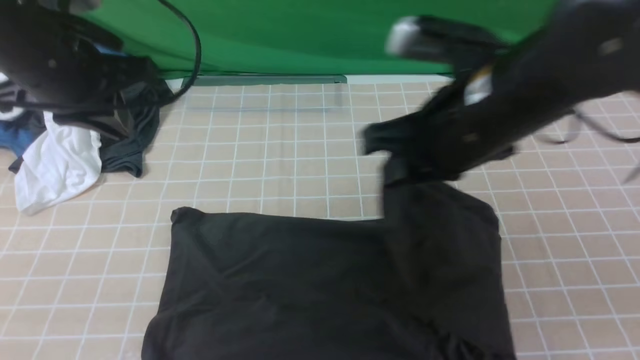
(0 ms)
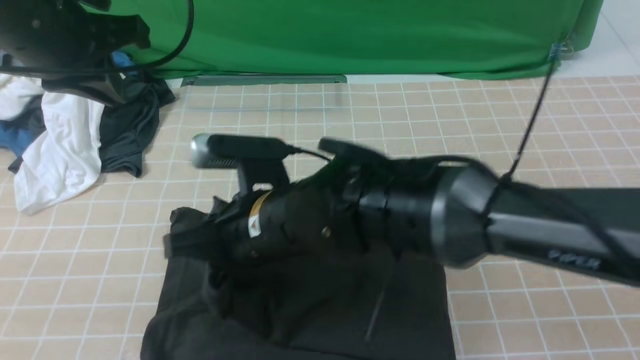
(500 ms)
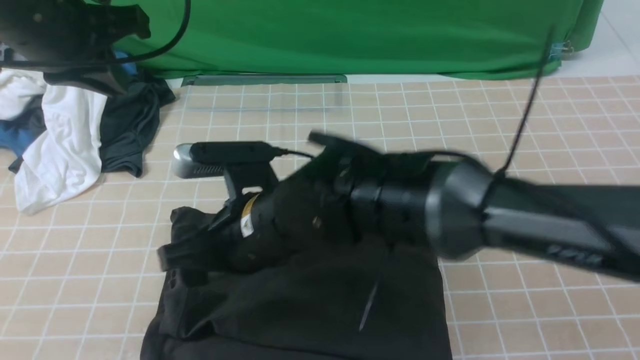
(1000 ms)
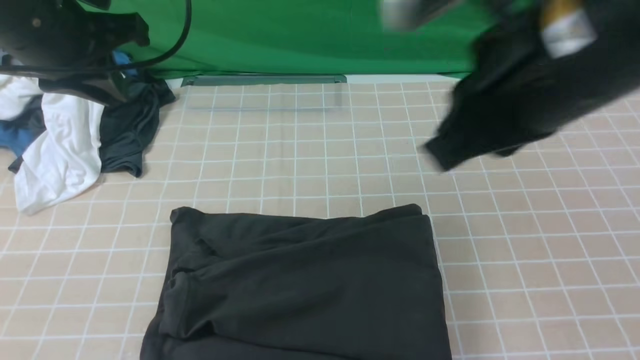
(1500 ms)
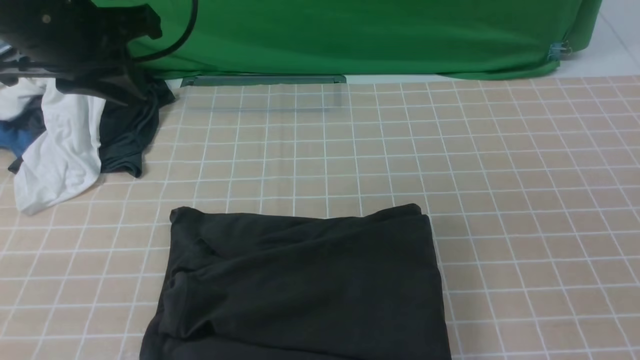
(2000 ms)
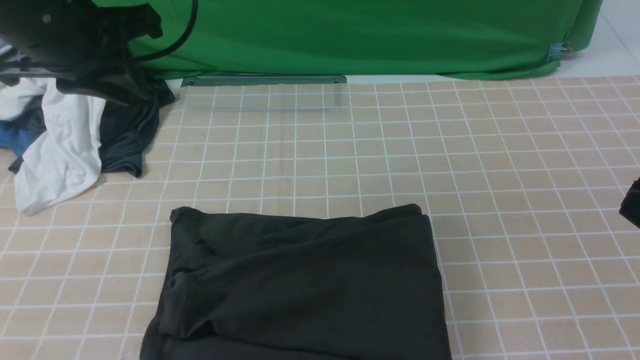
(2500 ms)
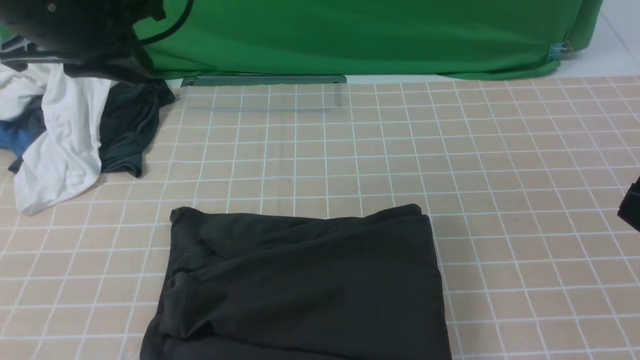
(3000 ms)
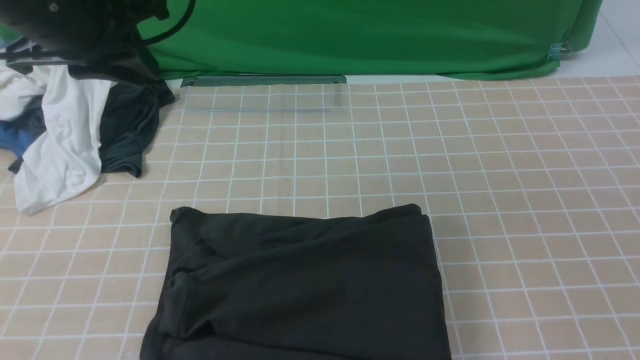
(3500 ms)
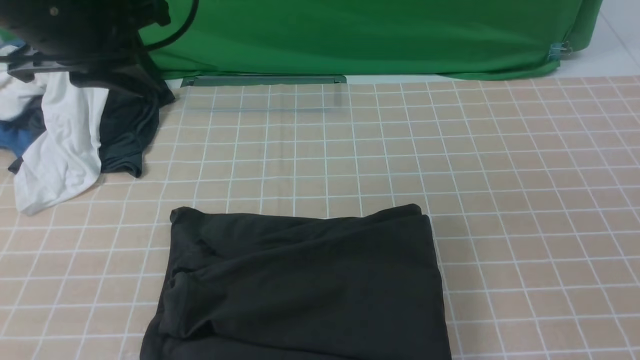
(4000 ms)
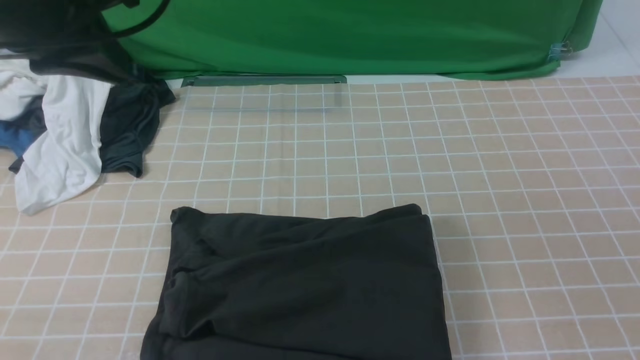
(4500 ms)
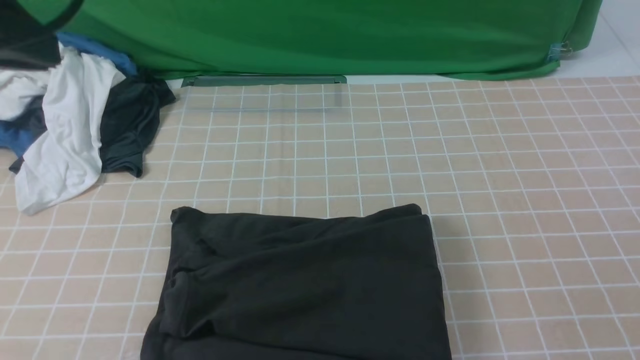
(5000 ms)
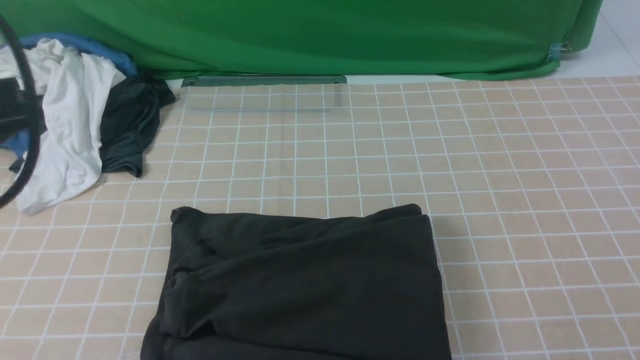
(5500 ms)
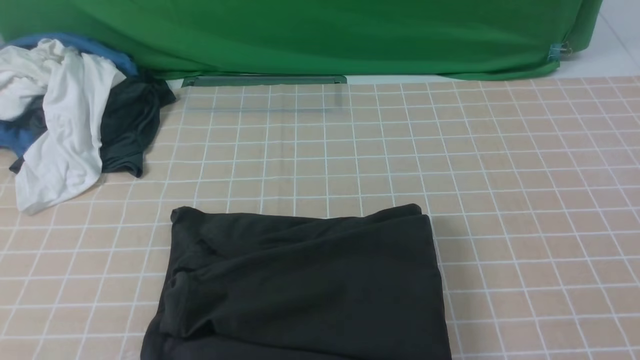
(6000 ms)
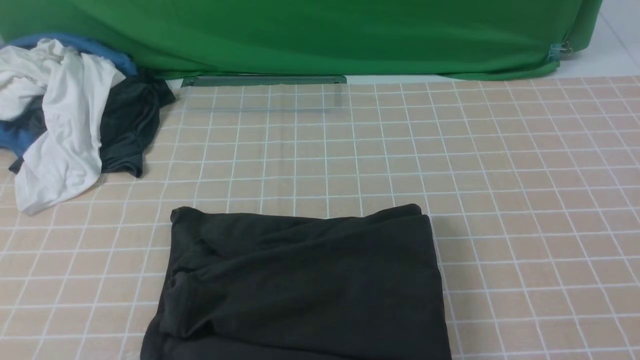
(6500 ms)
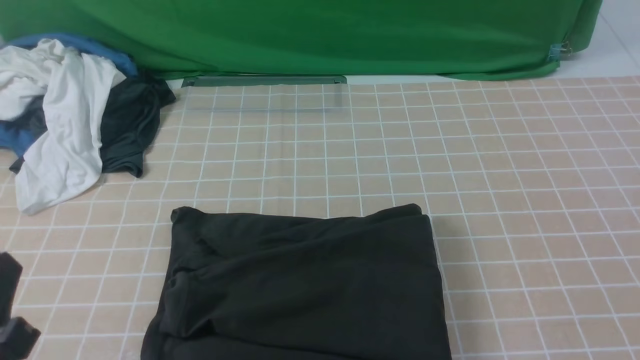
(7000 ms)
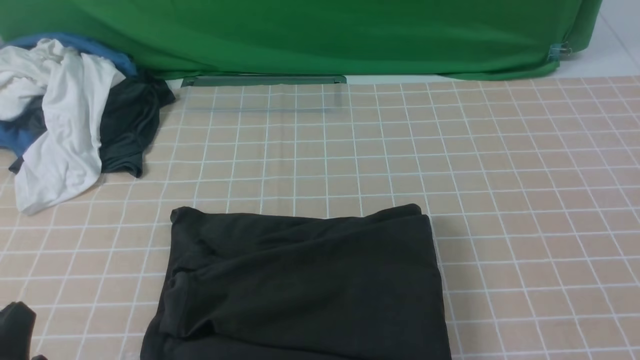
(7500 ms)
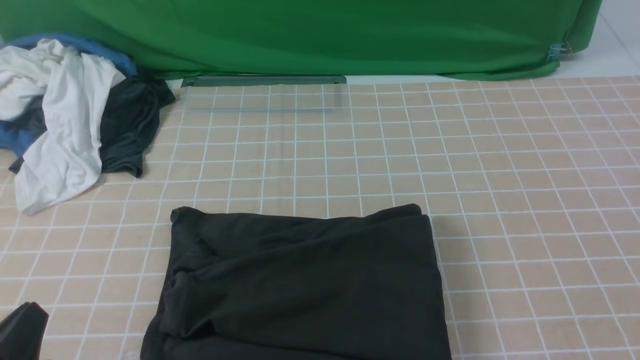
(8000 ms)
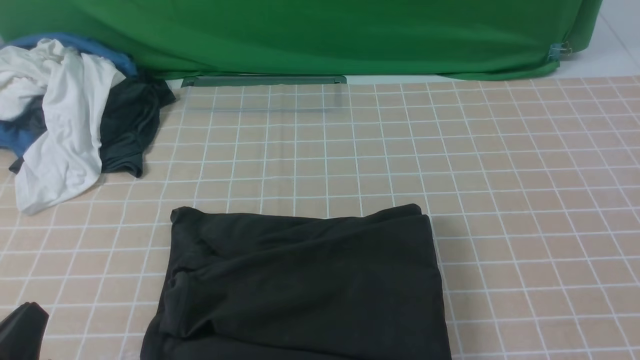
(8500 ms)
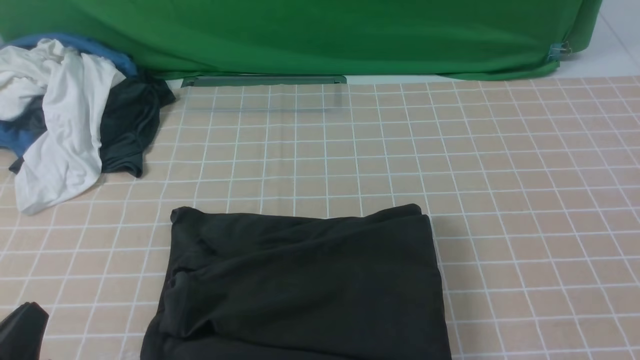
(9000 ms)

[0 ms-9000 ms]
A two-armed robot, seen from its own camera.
0 ms to 2000 ms: The right gripper moves backward and to the right, about 25 cm, and opens and closes again.
2000 ms to 4500 ms: The left gripper moves backward, some 5 cm.
4500 ms to 7000 ms: The left gripper heads backward and downward, covering about 30 cm.
7000 ms to 9000 ms: The left gripper heads downward, covering some 5 cm.

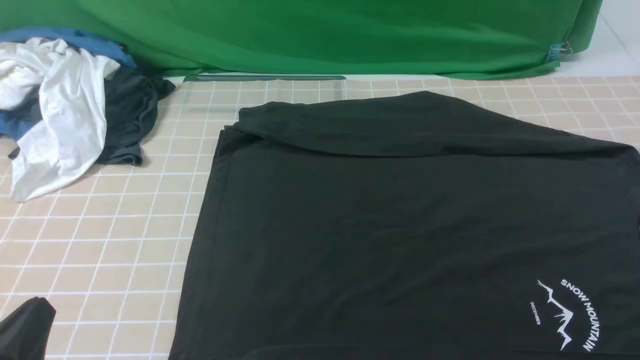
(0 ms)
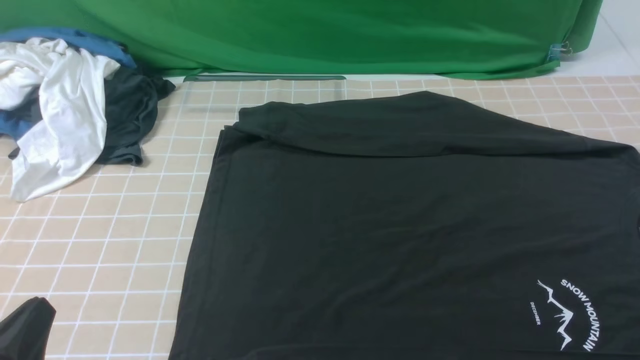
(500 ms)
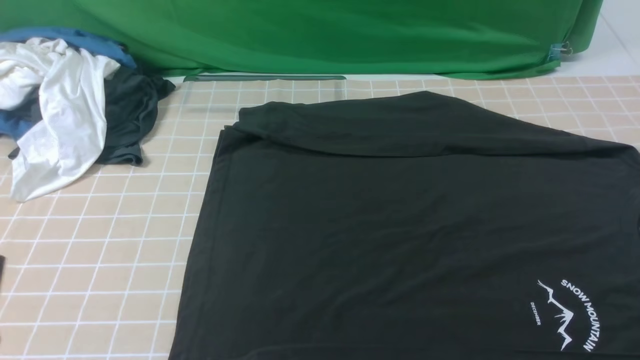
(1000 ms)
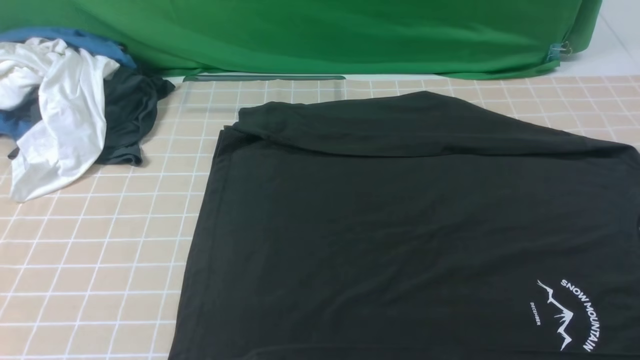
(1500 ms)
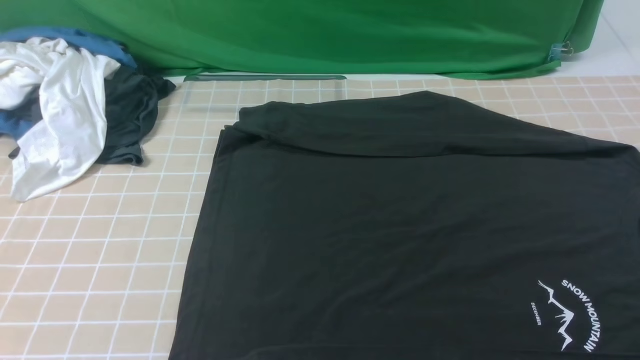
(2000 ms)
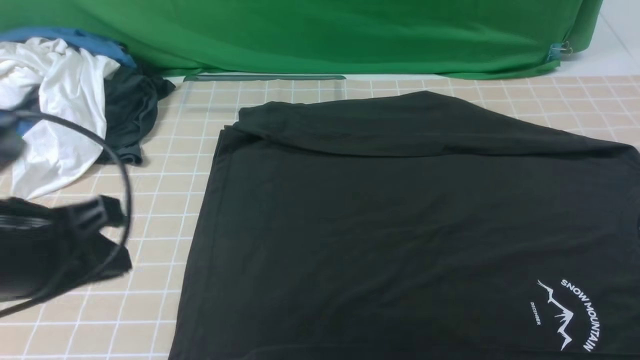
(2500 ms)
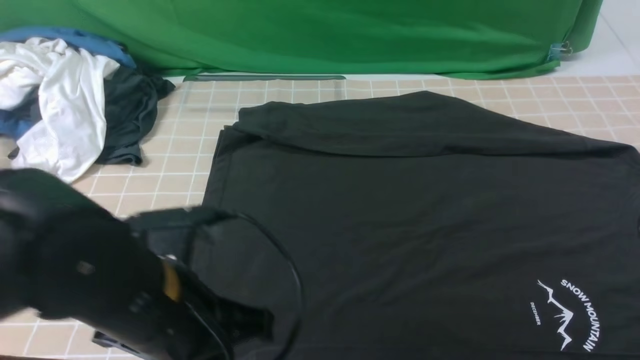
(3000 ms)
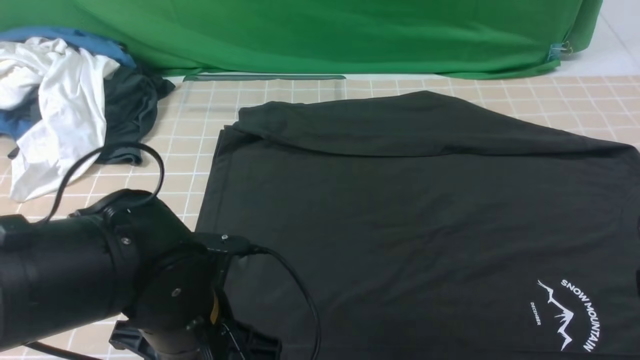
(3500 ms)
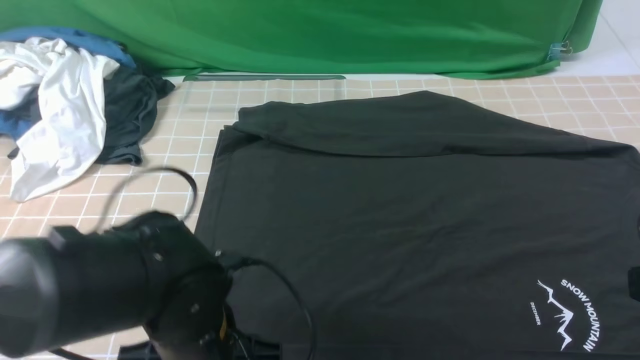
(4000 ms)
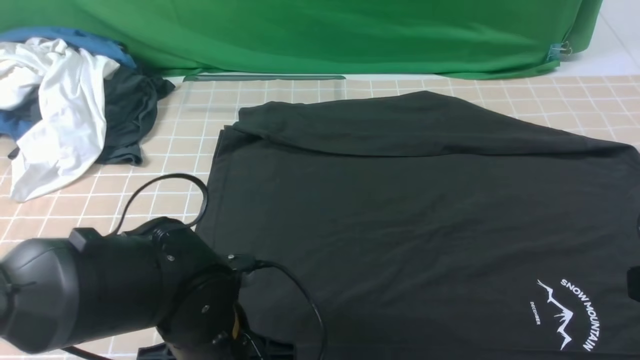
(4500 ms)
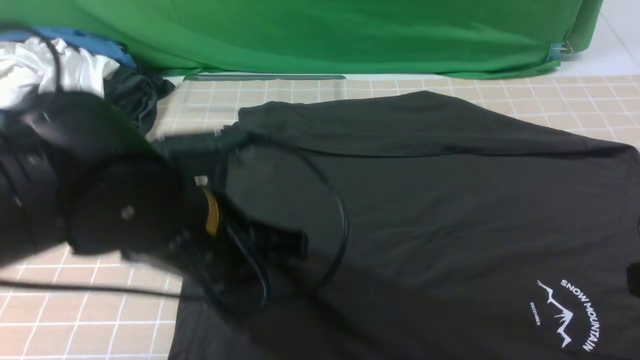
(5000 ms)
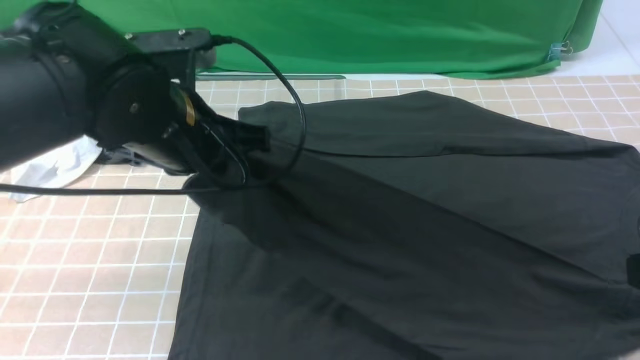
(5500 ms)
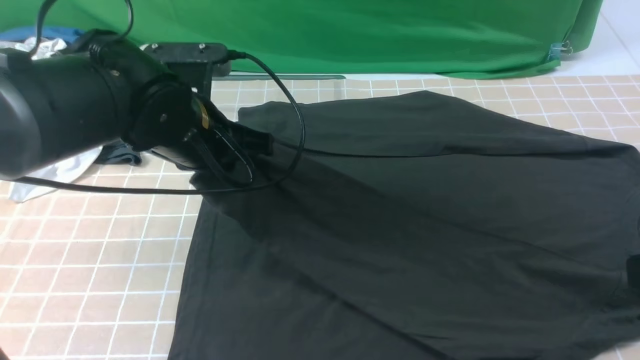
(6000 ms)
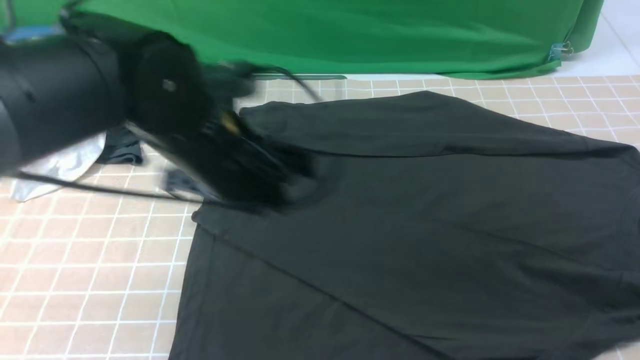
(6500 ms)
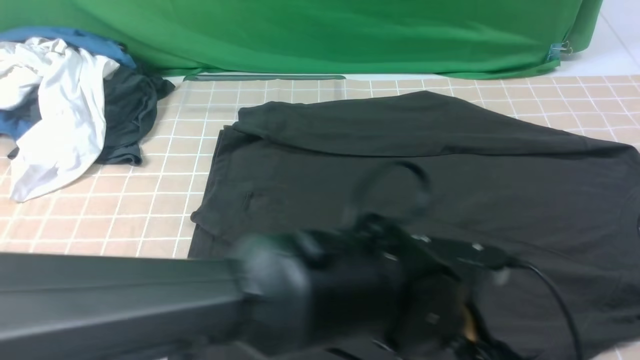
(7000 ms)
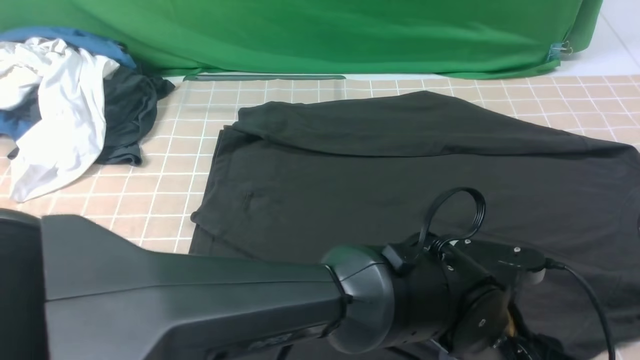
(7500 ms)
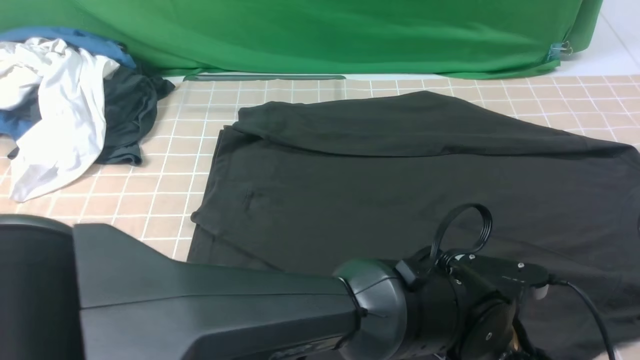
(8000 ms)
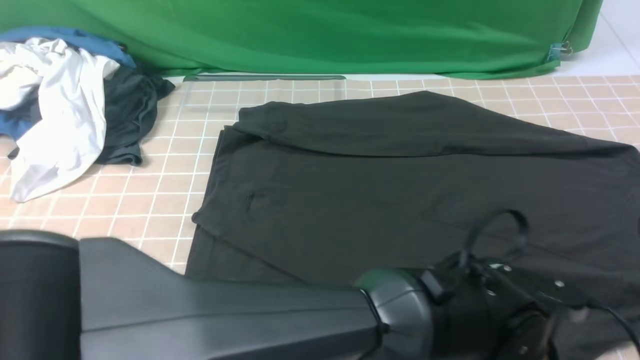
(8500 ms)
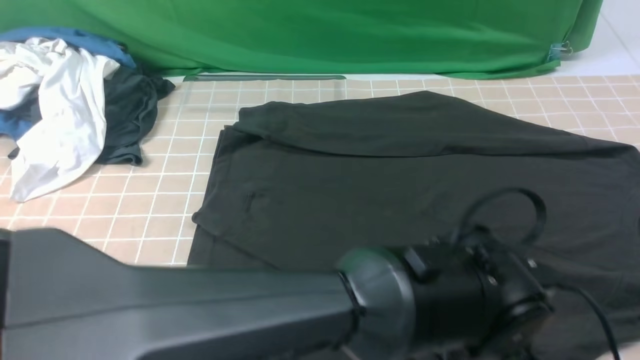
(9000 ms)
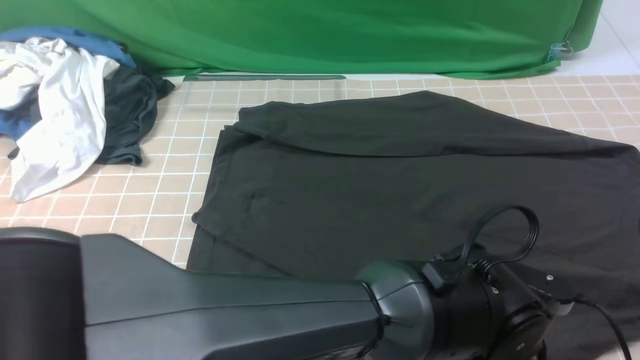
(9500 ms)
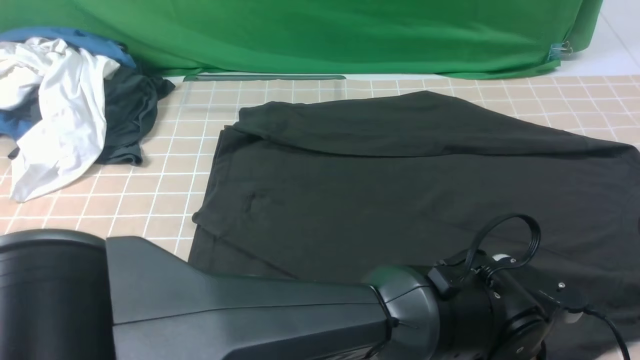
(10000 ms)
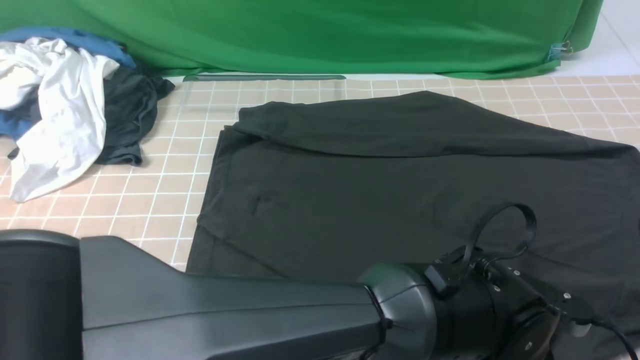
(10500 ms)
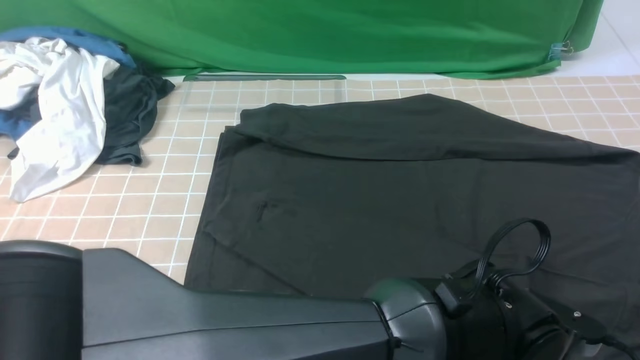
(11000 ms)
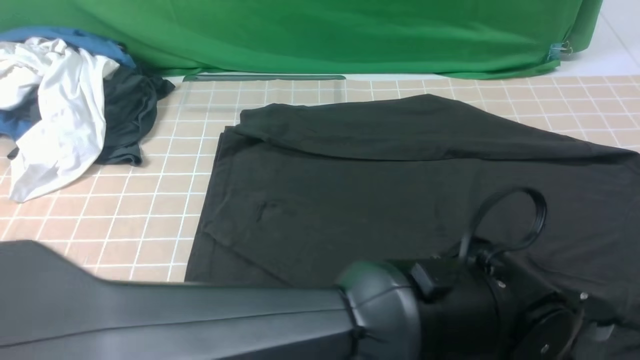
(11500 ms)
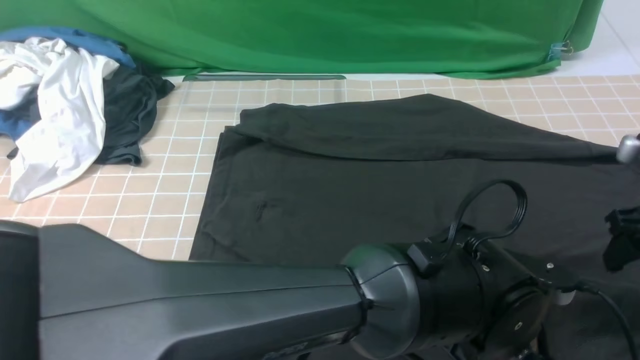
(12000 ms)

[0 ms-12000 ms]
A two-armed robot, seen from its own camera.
Step, 0 ms to 4000 ms: use the left arm to clamp the cuff closest to it.
Step, 5000 ms to 6000 ms: use the left arm to drag and place the cuff at the centered position on the left edge of the fabric.
0 ms to 2000 ms: The left gripper shifts some 15 cm upward.
2000 ms to 4000 ms: The left gripper is displaced downward, to the right and forward by roughly 25 cm, and opens up. Meanwhile the right gripper shifts some 5 cm forward.
4000 ms to 6000 ms: The left gripper shifts about 15 cm forward and upward, and closes up.
6000 ms to 8000 ms: The left gripper goes some 35 cm to the right, backward and downward, and opens and closes again.
8000 ms to 10000 ms: The left gripper opens and closes again.
10000 ms to 12000 ms: The left gripper opens, then closes once more; the right gripper heads forward and downward, covering some 20 cm, and opens its fingers.
